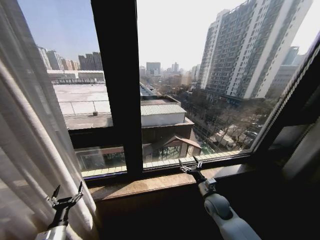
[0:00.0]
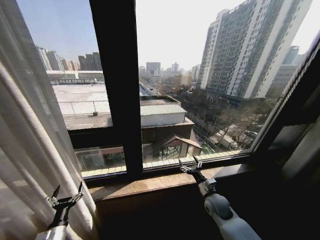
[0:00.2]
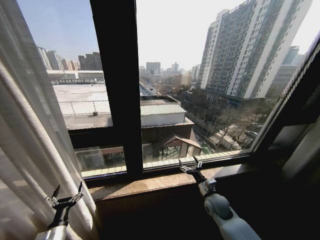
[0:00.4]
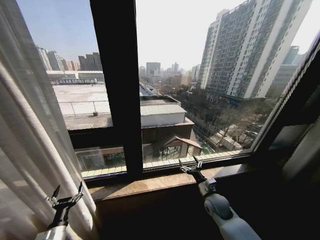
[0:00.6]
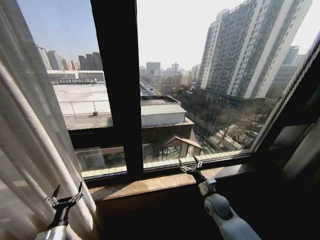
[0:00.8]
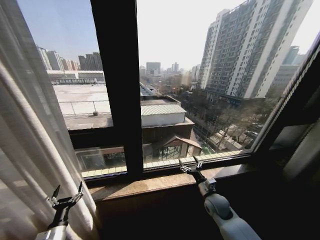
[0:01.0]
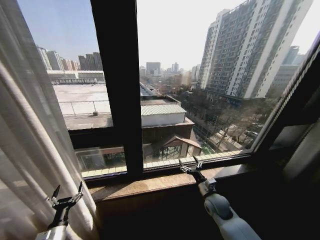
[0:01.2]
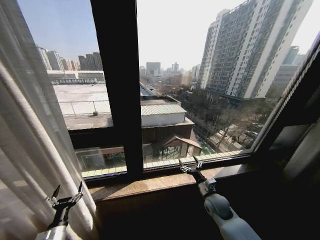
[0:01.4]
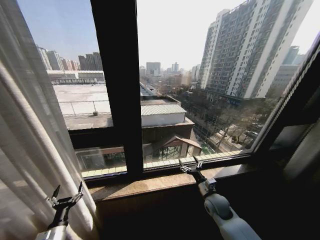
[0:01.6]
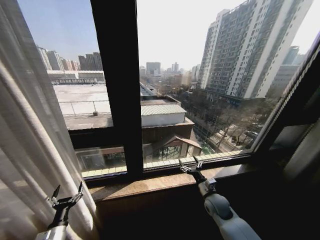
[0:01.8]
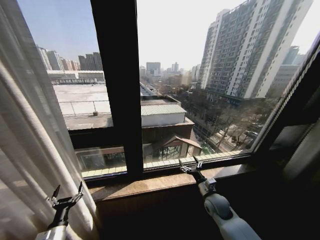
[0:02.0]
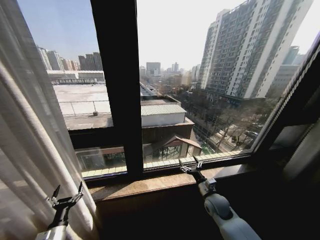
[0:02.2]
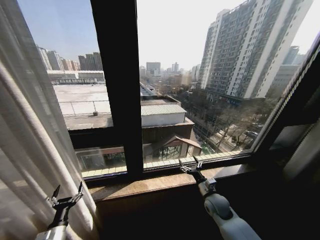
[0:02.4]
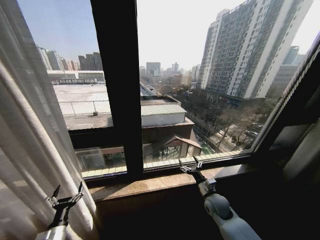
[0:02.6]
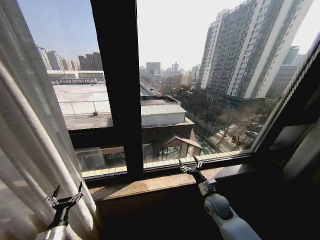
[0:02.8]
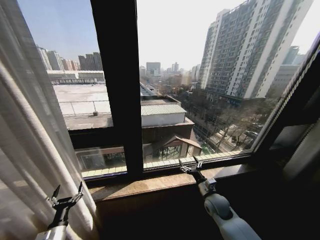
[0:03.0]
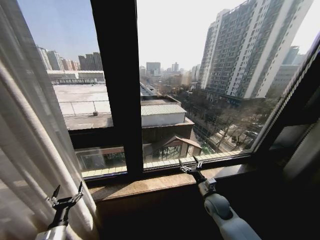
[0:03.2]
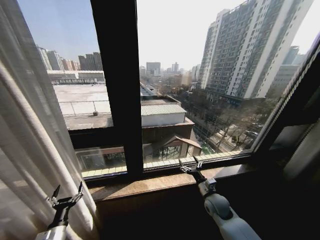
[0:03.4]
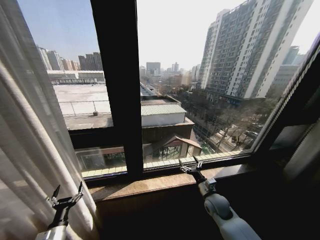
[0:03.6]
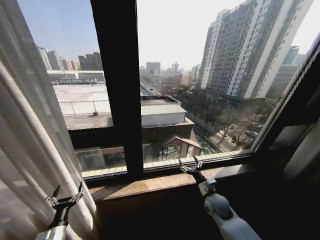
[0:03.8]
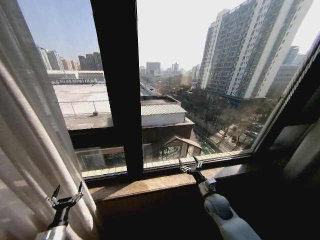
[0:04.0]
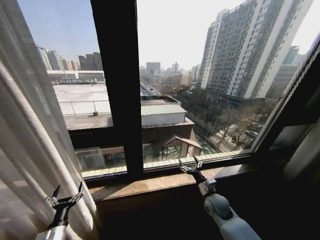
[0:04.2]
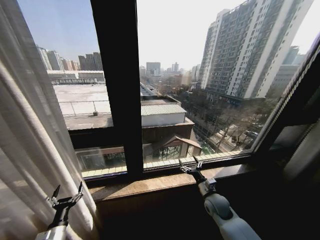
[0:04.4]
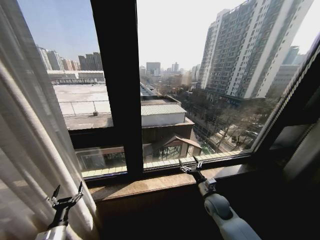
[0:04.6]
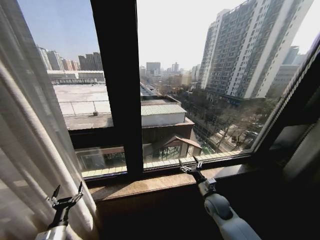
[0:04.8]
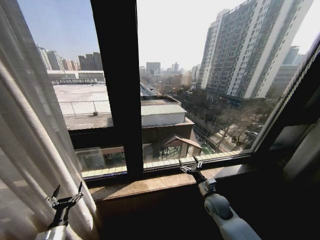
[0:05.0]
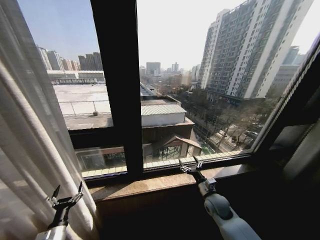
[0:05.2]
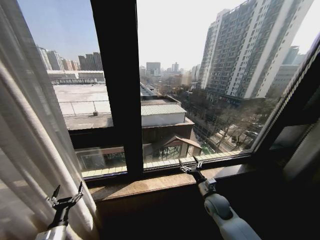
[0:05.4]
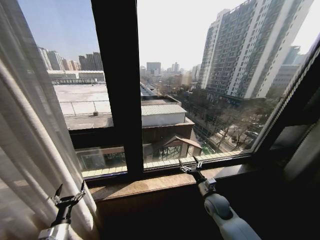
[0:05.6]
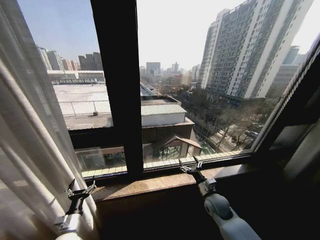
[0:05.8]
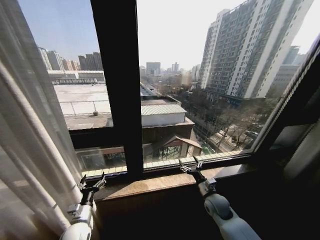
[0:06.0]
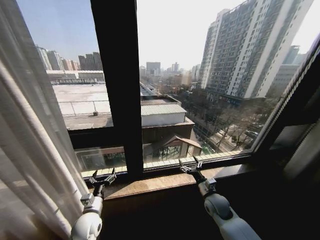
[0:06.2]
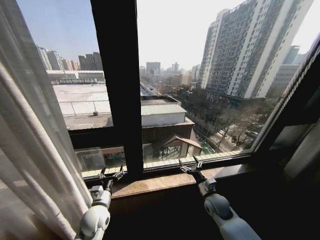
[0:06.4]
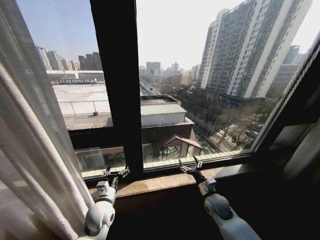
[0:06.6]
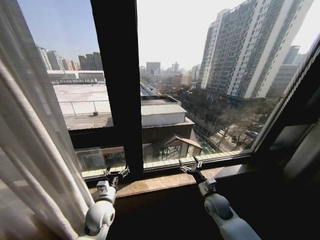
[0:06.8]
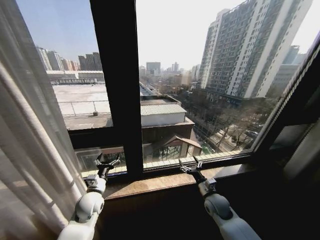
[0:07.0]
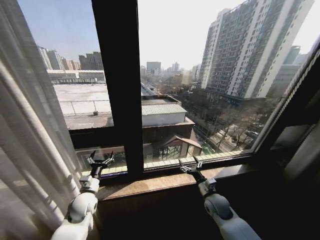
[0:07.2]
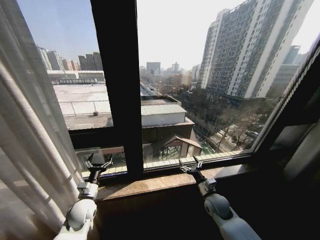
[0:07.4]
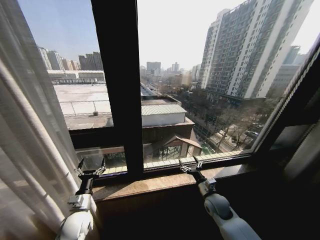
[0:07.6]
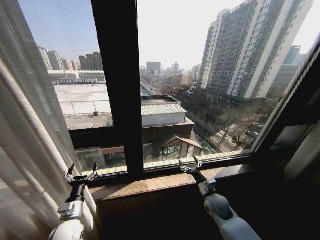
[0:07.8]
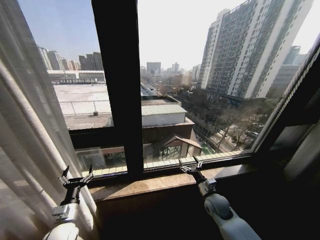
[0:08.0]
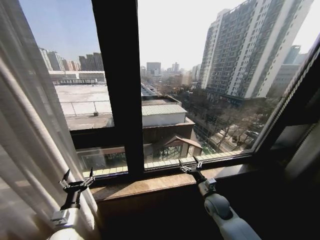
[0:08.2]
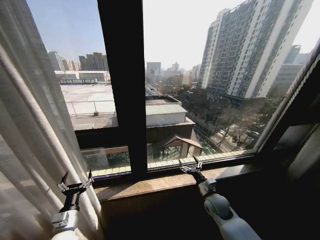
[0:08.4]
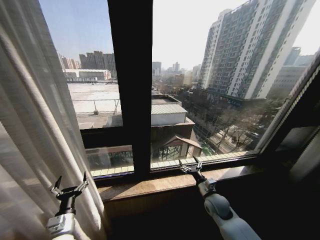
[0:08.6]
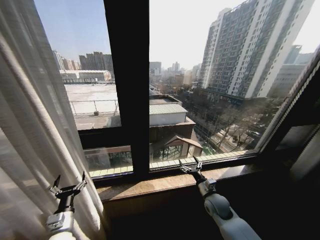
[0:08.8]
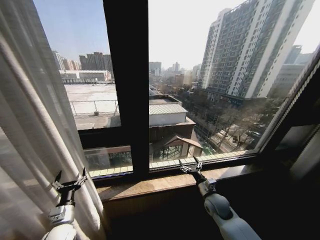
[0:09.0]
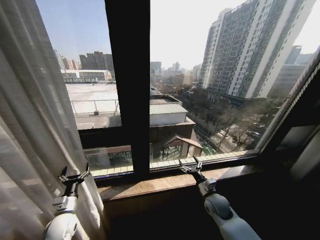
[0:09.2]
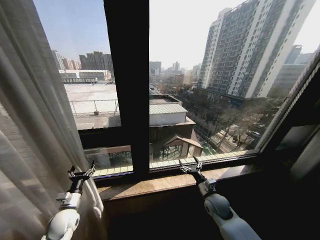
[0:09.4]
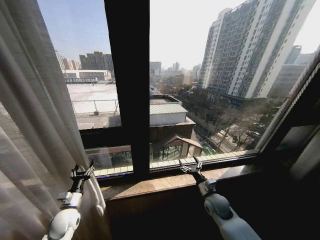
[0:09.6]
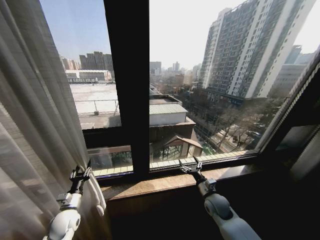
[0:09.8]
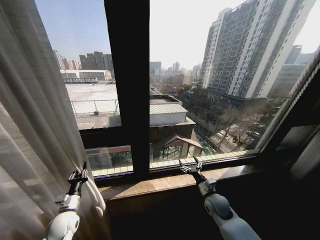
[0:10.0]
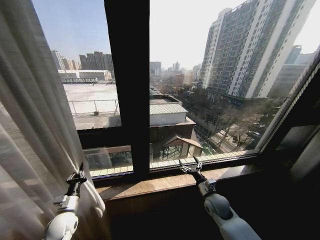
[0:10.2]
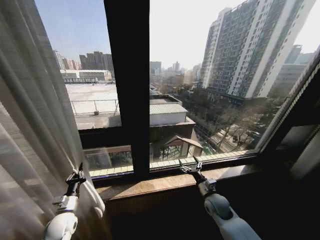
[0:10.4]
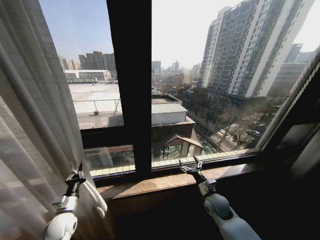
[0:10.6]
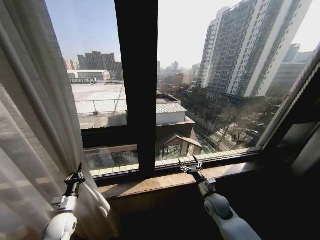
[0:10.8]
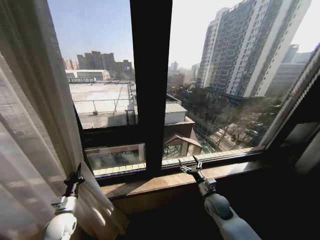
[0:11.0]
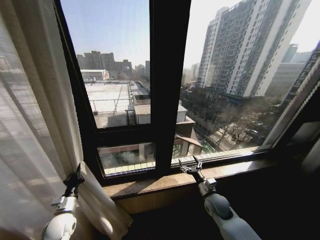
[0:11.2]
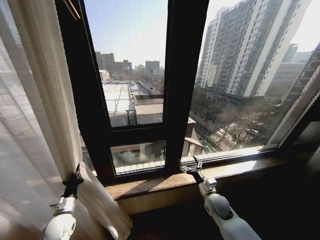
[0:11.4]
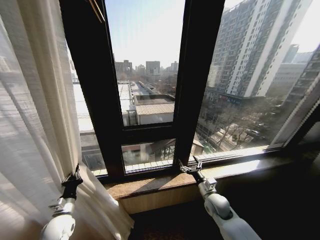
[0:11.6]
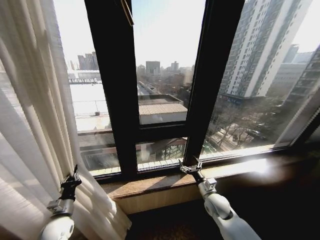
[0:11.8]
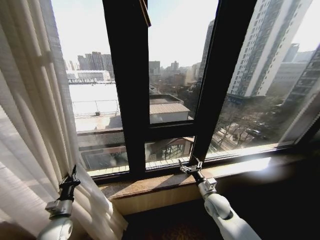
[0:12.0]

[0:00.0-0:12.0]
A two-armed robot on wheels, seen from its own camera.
Task of the whole recording: Open the curtains by pulling them apart, changing their state from closed to fully open.
0:00.0 to 0:04.4: The two grippers keep their place.
0:04.4 to 0:06.0: The left gripper shifts about 10 cm to the right and forward.
0:06.0 to 0:07.6: The left gripper moves about 10 cm to the right and comes back.
0:07.6 to 0:09.0: The left gripper moves approximately 5 cm.
0:09.0 to 0:10.4: The left gripper ends up some 5 cm from where it was, and closes its fingers.

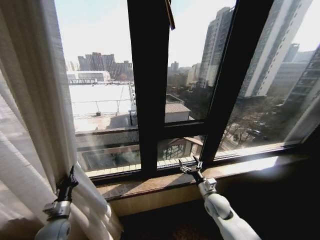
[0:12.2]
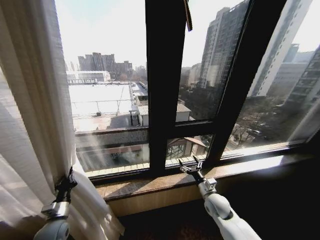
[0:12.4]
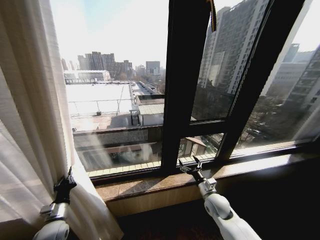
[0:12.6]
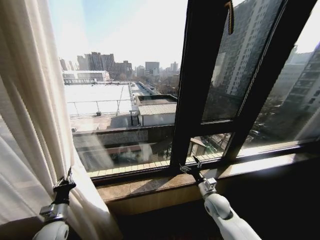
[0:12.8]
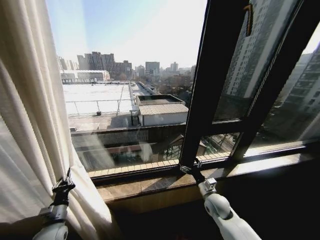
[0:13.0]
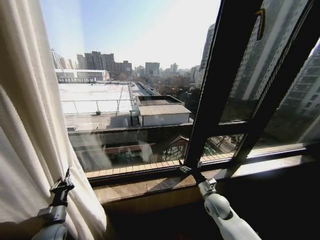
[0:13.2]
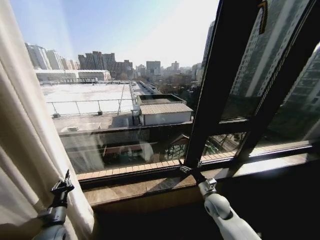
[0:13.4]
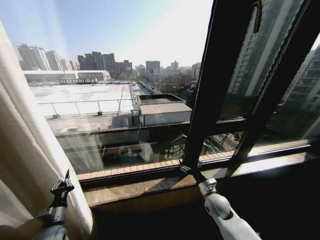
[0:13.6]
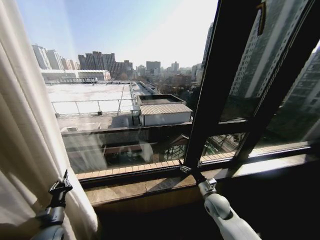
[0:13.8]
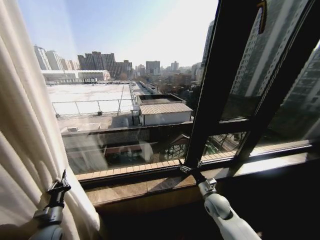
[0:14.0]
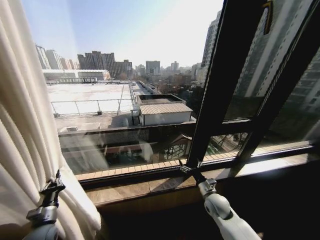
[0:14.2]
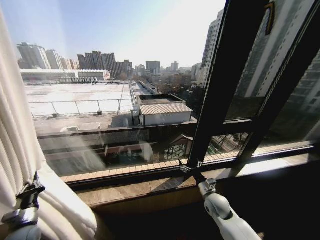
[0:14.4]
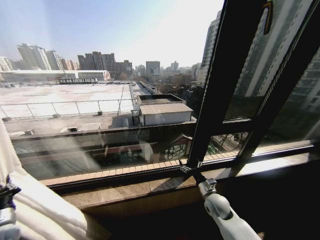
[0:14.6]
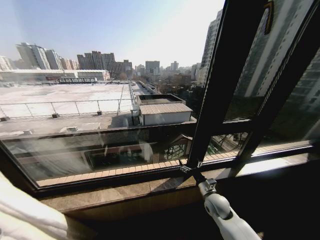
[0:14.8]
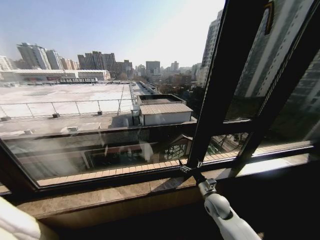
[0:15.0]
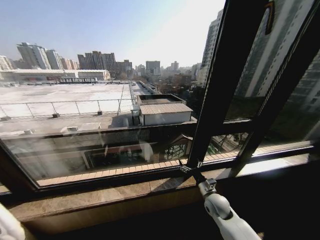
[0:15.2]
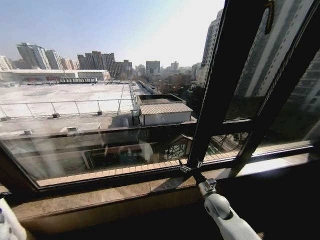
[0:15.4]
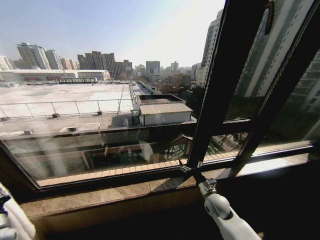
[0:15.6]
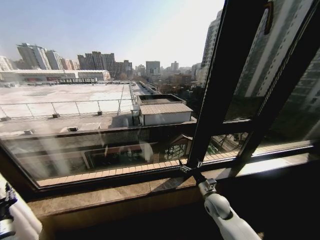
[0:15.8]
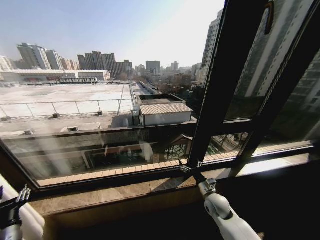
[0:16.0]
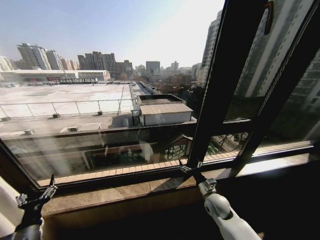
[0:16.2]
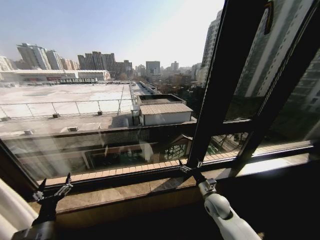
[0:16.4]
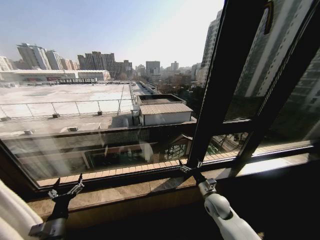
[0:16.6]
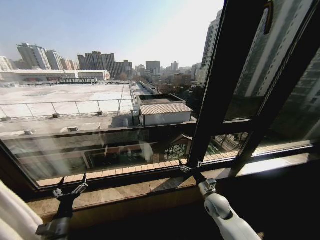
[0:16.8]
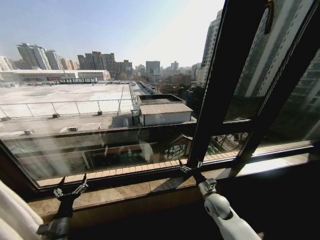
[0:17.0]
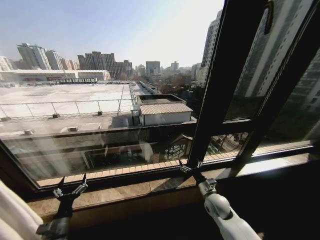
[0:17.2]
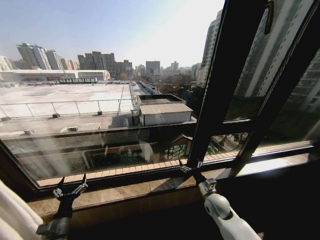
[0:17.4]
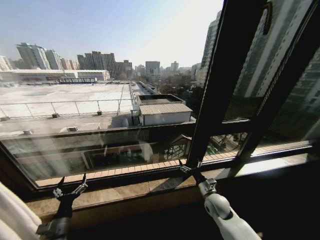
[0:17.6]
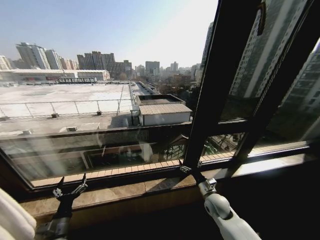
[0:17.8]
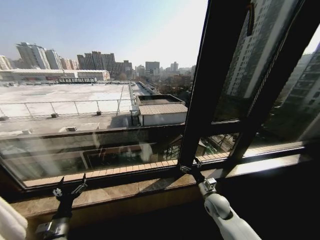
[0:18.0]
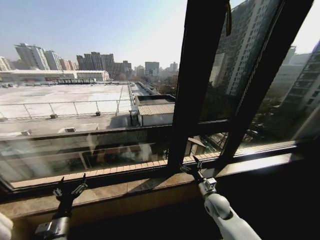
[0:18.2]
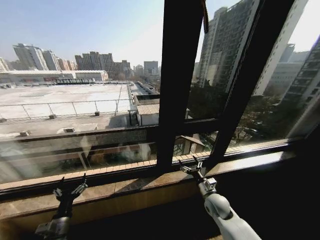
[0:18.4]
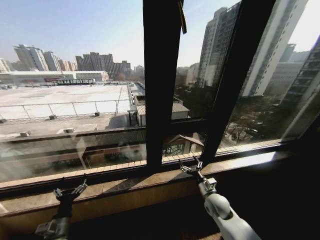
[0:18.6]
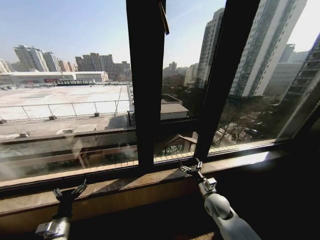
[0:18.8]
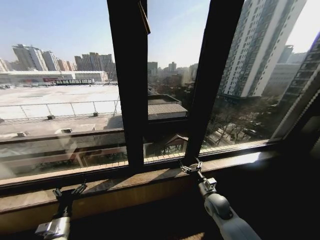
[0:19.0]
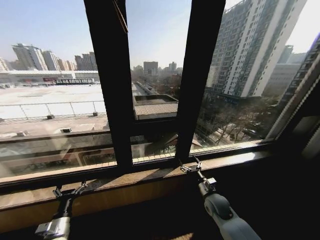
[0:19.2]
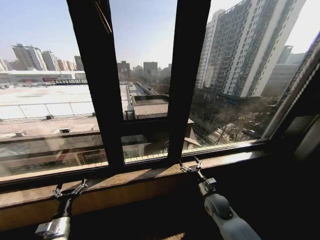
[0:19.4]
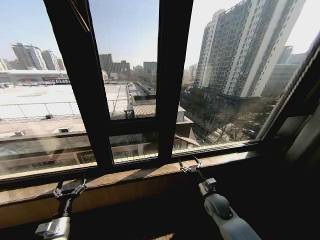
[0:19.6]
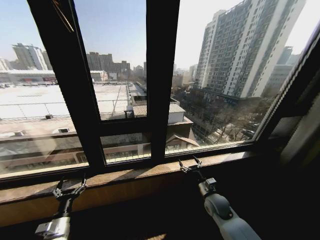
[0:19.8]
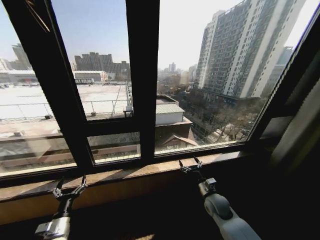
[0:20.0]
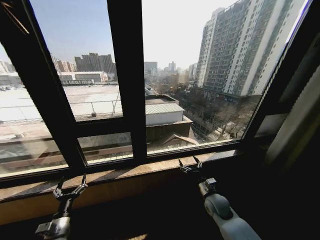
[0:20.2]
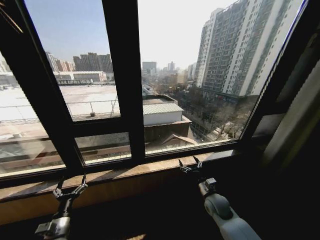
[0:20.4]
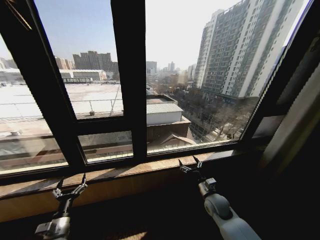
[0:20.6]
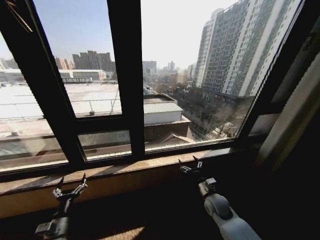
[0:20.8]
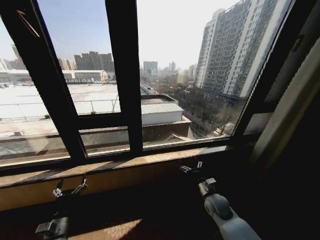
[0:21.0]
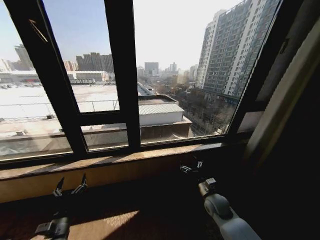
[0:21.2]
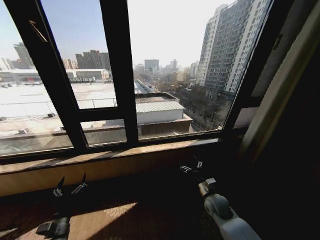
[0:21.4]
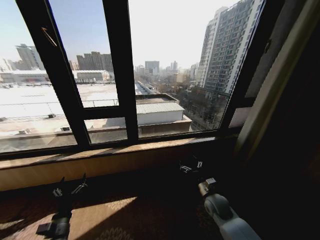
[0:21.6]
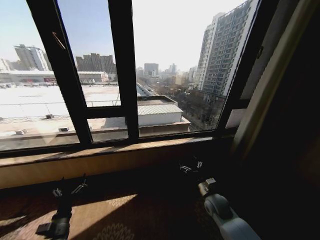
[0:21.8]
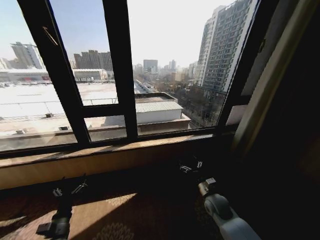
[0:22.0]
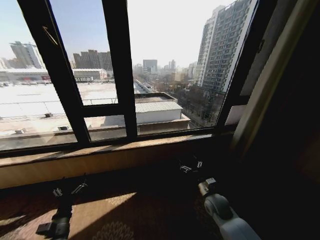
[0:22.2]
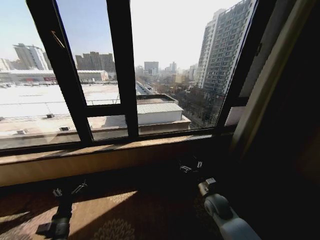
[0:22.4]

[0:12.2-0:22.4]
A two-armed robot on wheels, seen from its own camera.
Task of the whole recording: Open the curtains by pulling them apart, changing their state from closed to fully open.
0:13.6 to 0:15.2: The left gripper travels to the left by about 25 cm.
0:15.2 to 0:16.6: The left gripper heads to the right, covering approximately 30 cm, and opens its fingers.
